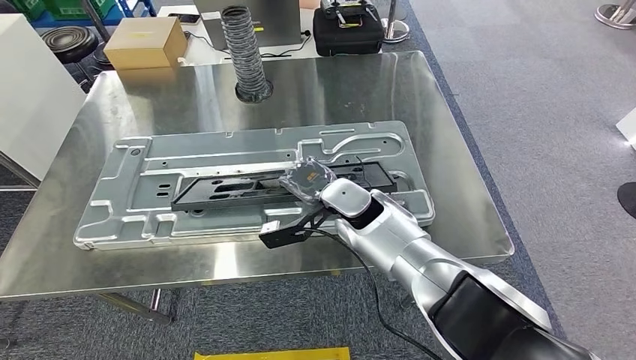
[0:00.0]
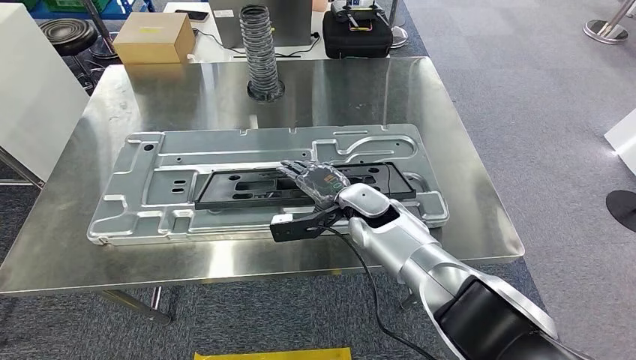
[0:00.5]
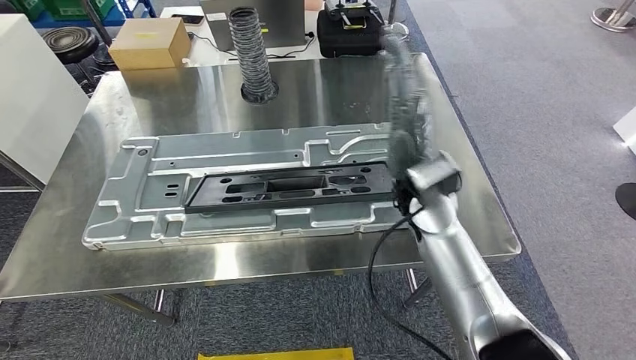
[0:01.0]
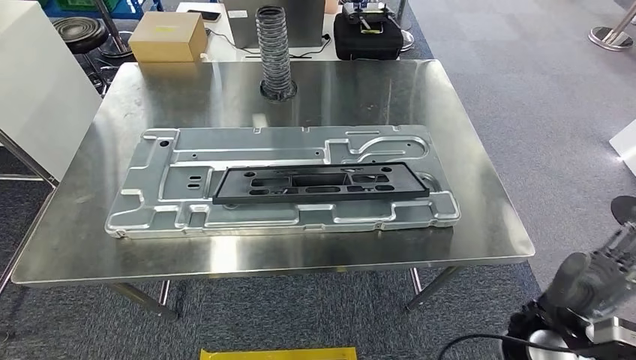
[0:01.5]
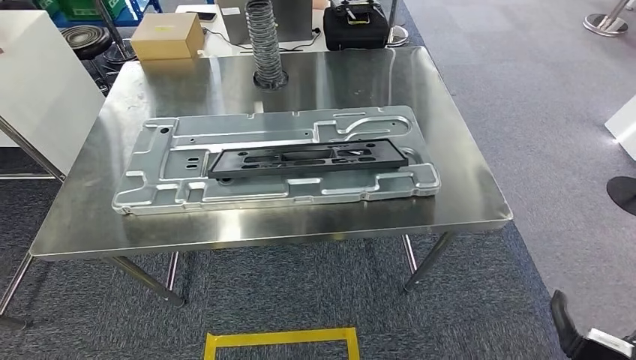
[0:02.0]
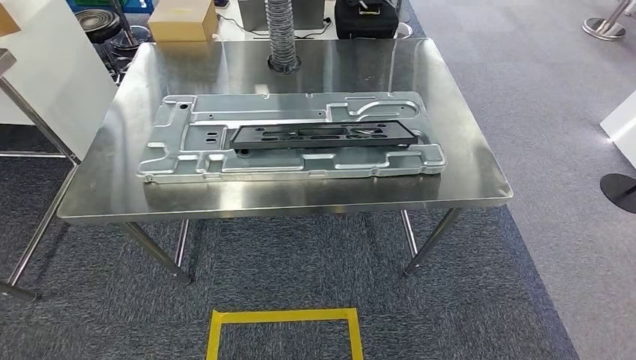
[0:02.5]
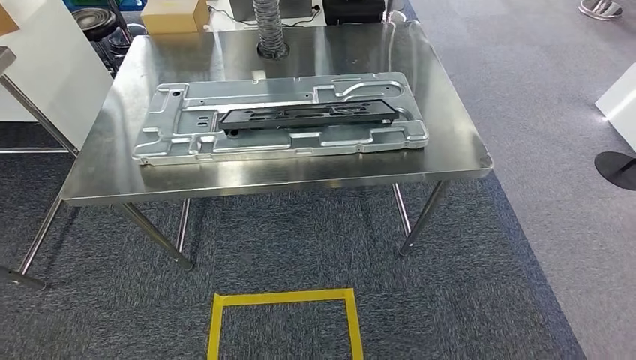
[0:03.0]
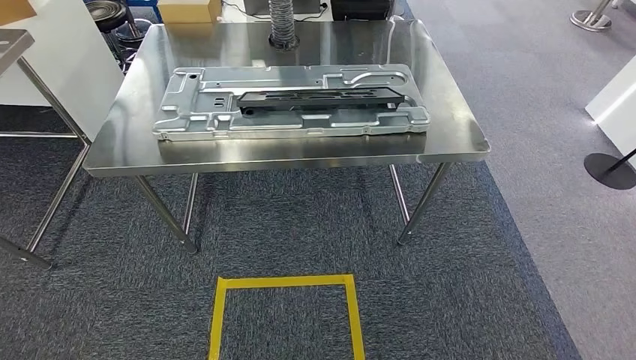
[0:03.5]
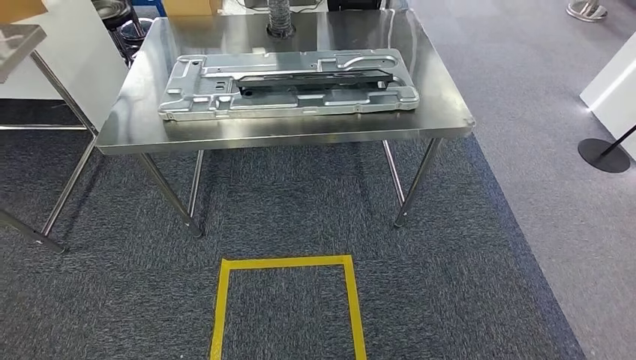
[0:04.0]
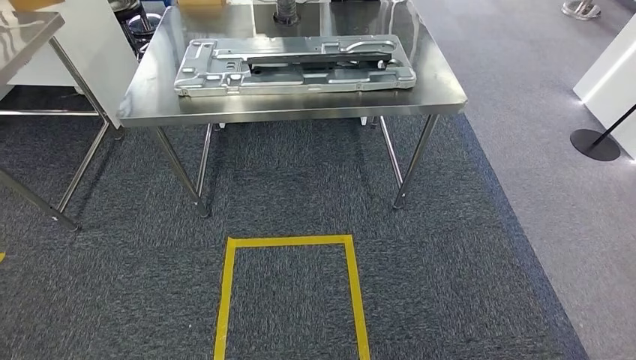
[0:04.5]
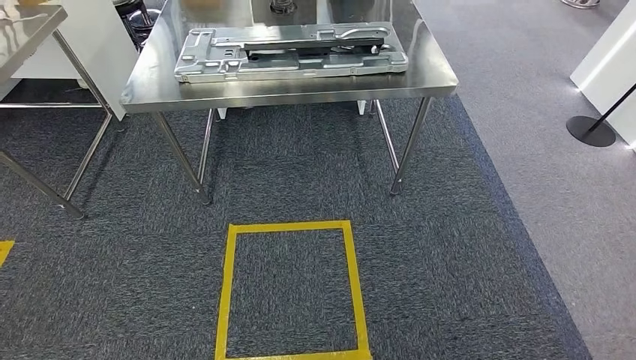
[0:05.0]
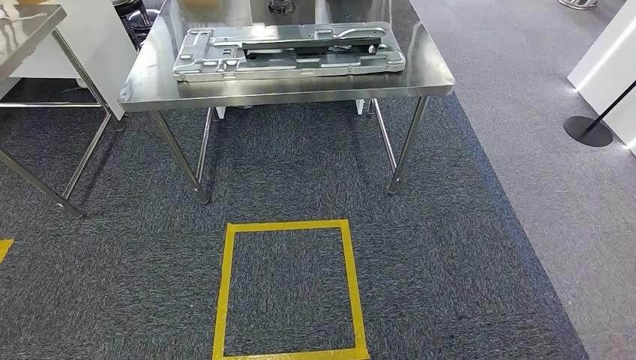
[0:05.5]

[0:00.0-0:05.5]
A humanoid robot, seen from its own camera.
Step, 0:00.0 to 0:02.0: Insert the small component into the corresponding slot on the workbench.
Step, 0:02.5 to 0:05.5: Move to the initial position at the workbench.
